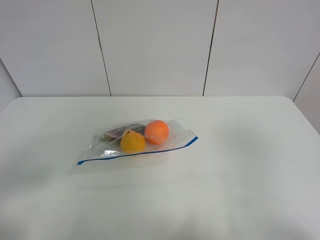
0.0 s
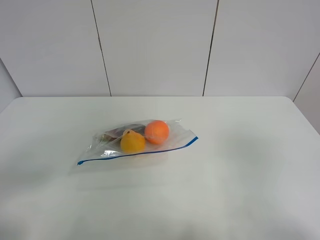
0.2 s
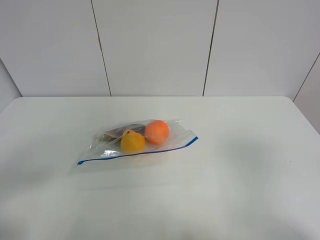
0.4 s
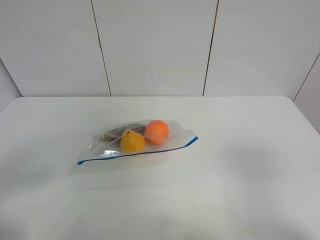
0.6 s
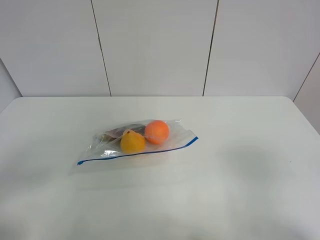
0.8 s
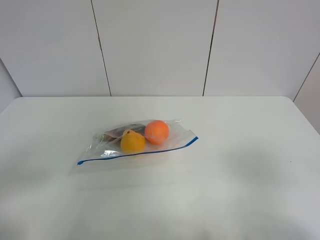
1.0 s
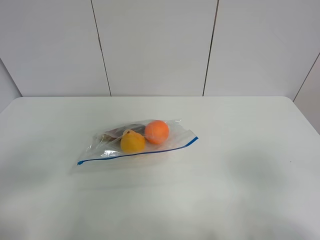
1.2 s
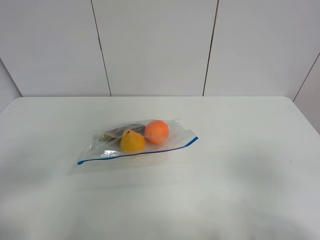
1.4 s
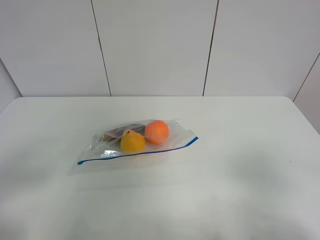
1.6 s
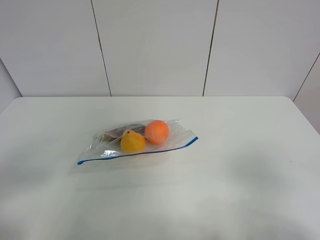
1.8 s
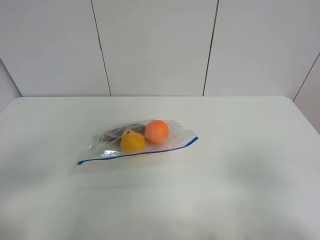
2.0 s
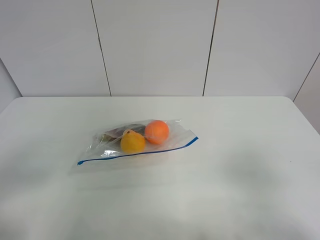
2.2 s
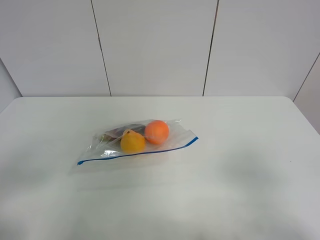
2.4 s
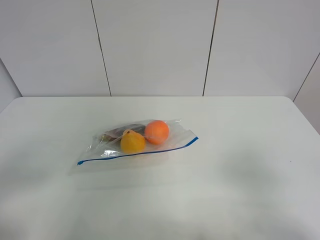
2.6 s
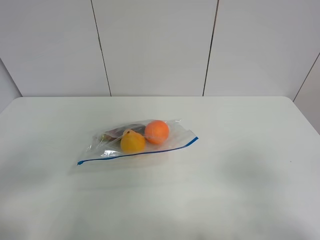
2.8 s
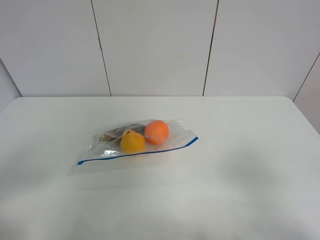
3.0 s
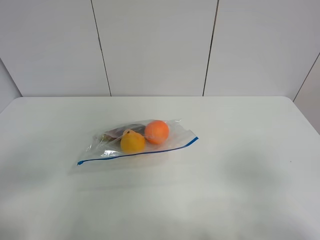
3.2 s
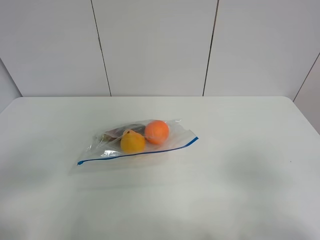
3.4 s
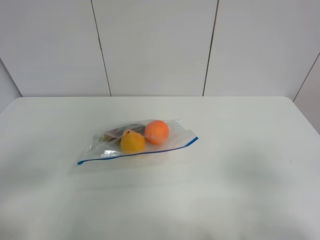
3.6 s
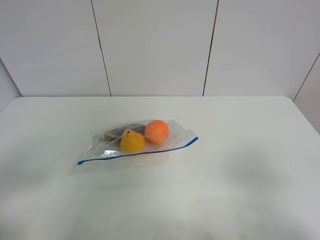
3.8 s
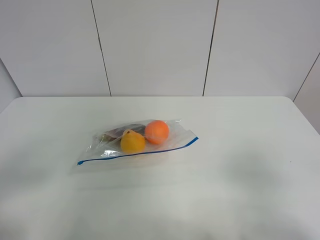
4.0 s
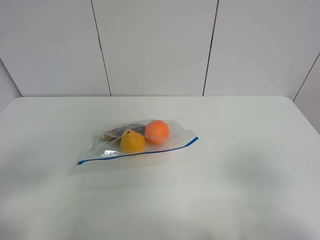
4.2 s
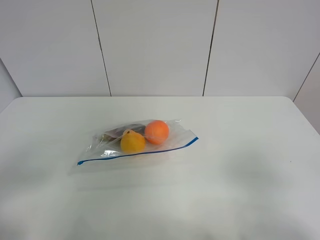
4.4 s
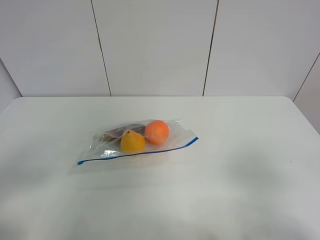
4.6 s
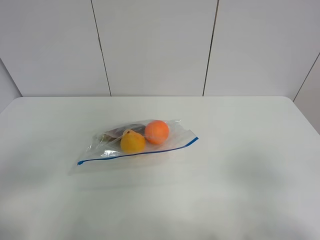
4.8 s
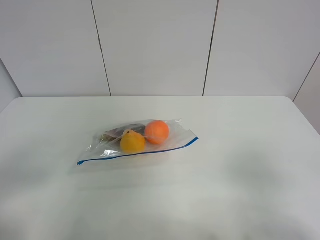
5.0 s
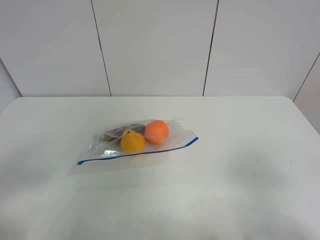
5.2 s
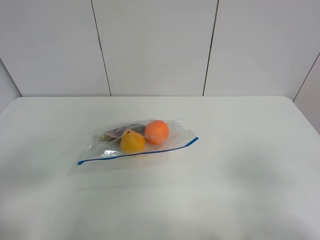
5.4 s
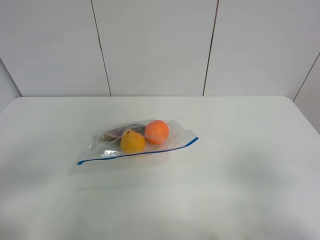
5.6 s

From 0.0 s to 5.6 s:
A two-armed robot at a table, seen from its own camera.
From 2.8 s to 4.2 s: Both grippers stay about where they are.
From 4.2 s to 5.6 s: Neither gripper changes place.

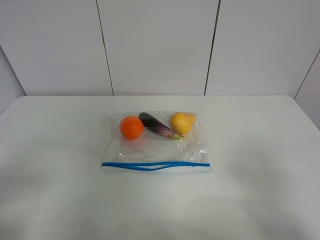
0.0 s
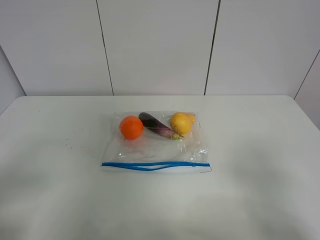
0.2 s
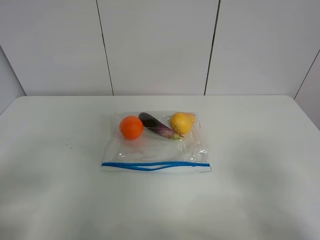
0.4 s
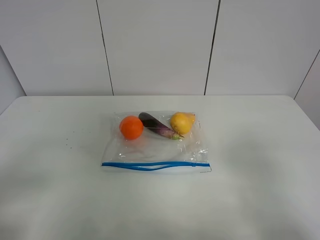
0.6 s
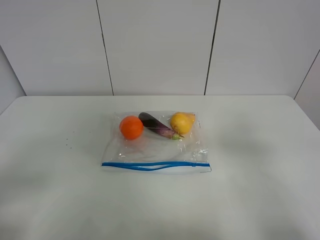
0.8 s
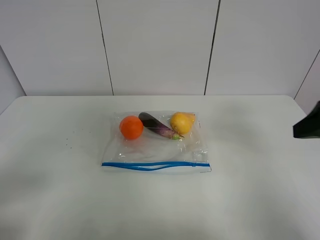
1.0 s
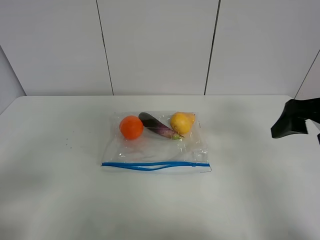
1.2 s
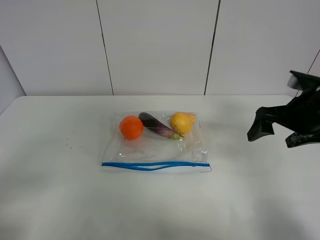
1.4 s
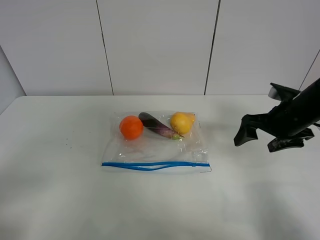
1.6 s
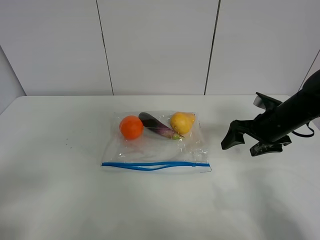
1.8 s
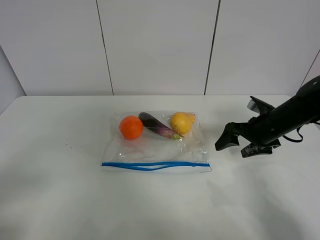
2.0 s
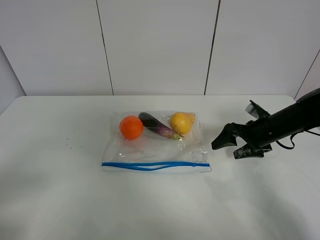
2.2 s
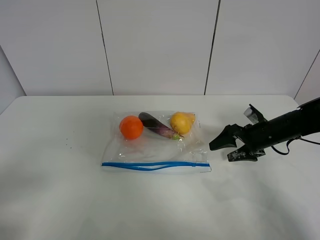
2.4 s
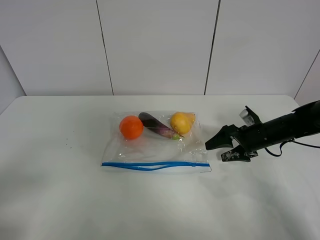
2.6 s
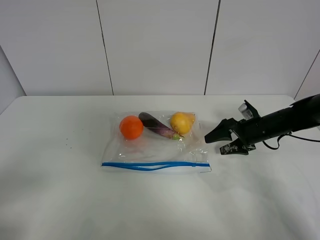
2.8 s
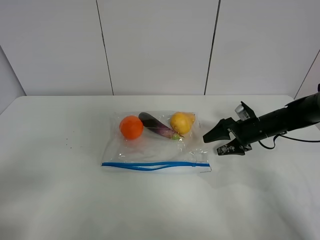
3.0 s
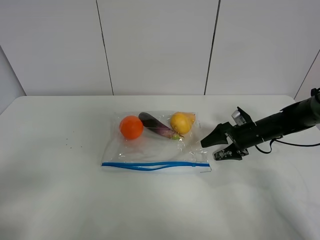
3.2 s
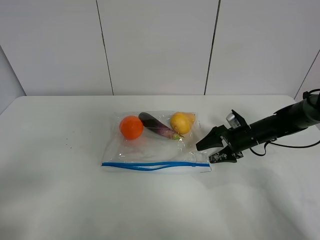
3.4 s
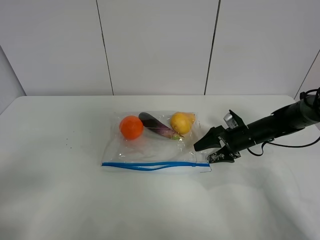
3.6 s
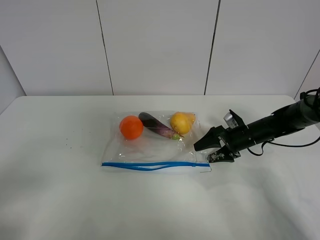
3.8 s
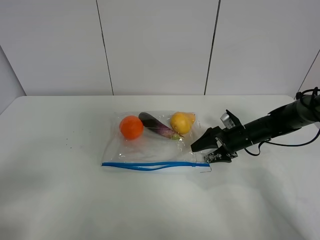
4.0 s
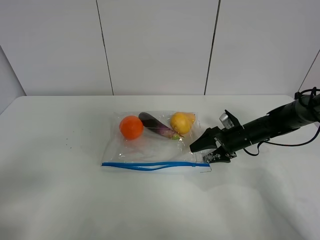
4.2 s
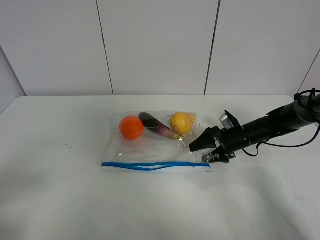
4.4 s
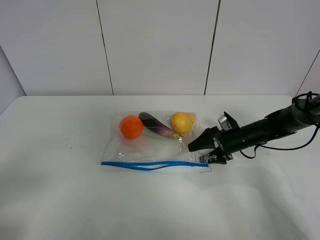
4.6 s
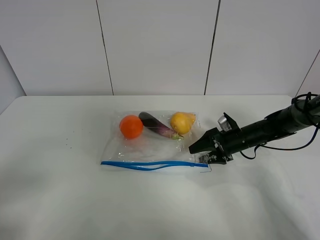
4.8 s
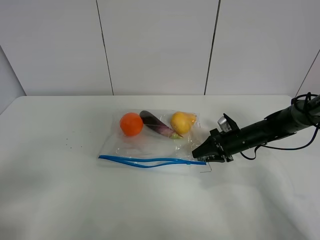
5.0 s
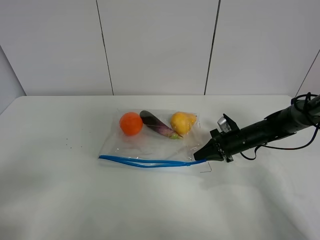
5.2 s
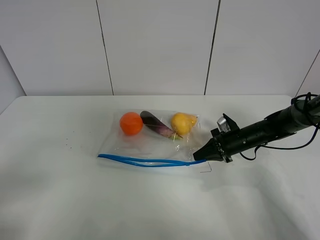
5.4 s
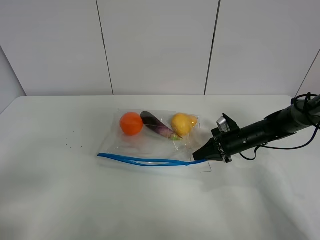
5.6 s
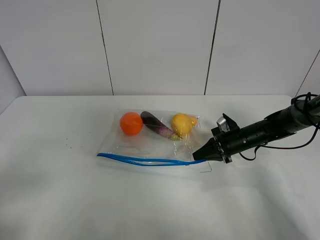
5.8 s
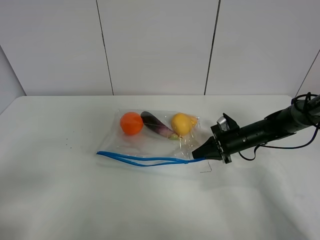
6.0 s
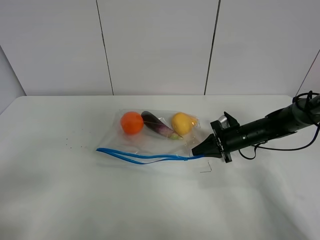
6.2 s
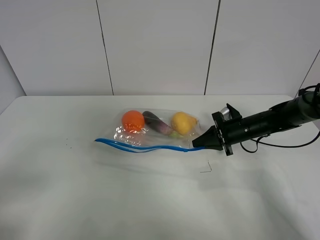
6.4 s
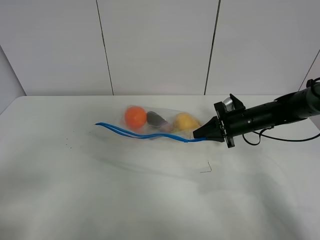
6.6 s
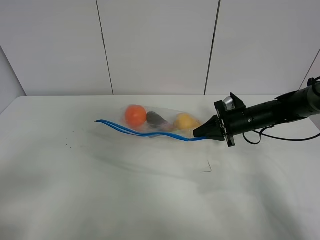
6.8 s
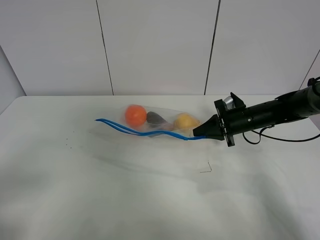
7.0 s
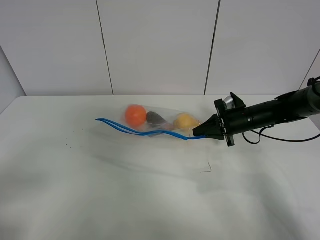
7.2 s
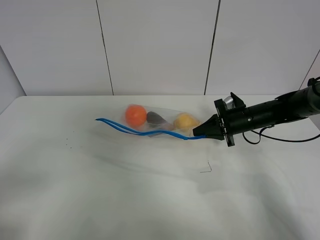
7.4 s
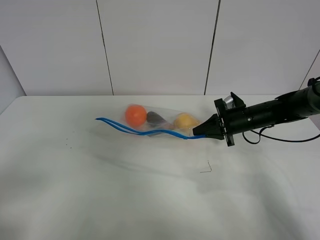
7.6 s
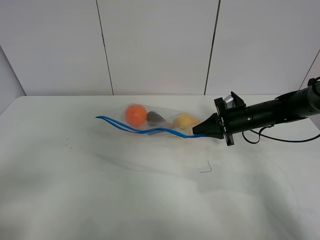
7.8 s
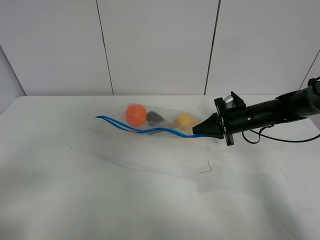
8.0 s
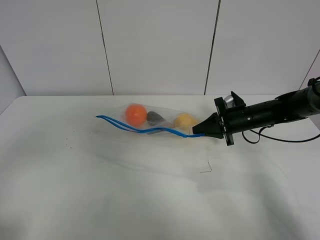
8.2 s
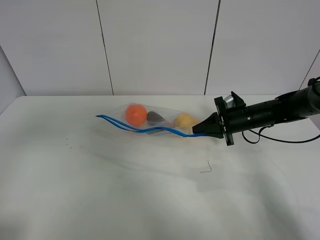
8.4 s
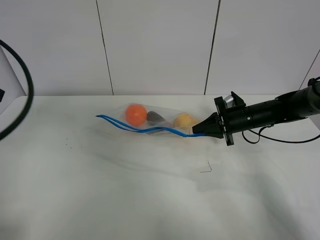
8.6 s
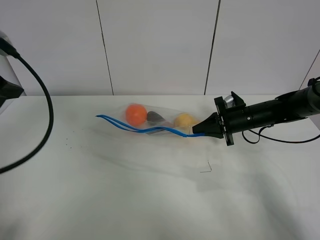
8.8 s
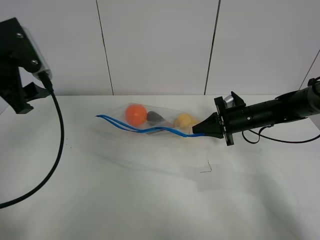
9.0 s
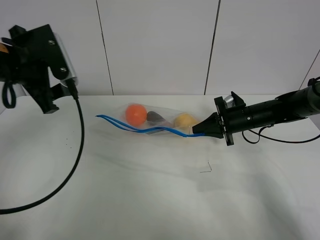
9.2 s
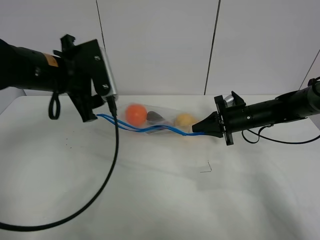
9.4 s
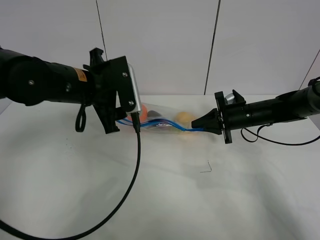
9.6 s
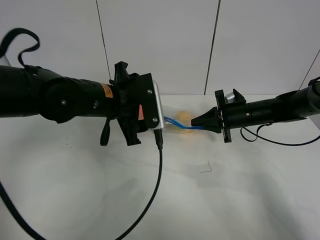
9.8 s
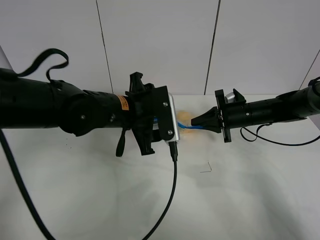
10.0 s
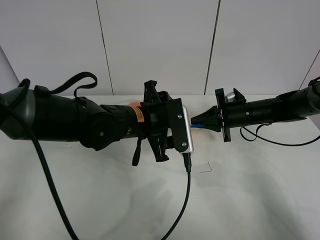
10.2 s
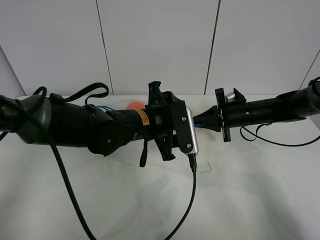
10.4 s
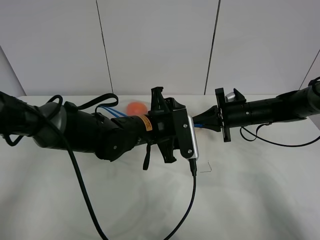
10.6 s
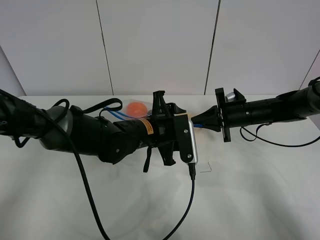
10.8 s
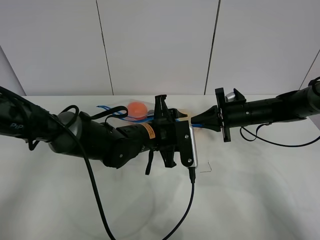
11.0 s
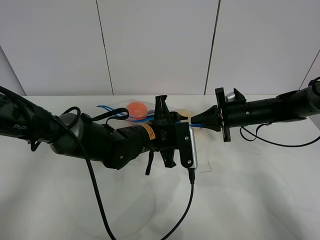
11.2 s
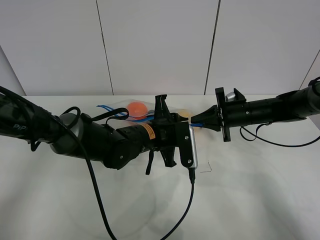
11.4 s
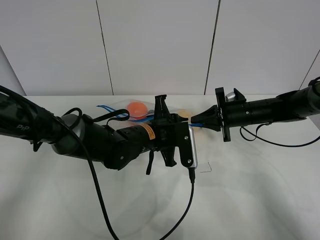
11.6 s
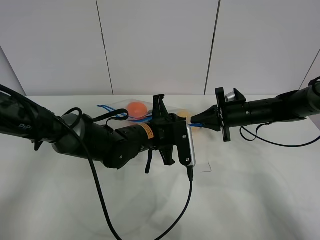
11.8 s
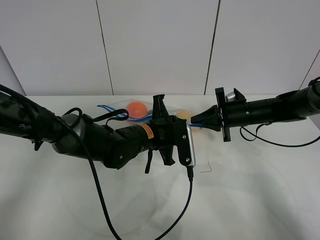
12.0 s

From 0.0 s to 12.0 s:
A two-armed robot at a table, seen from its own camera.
Step, from 0.0 s to 5.2 s: Grasp the fruit bag with right gripper.
Step, from 5.4 s to 7.2 s: Lift the fruit bag with your right gripper.
From 0.0 s to 1.6 s: The right gripper moves forward, roughly 30 cm.
From 1.6 s to 3.0 s: The right gripper moves downward and forward, about 15 cm.
From 3.0 s to 4.4 s: The grippers stay close to where they were, moving slightly.
From 4.4 s to 6.0 s: The right gripper closes.
From 6.0 s to 7.6 s: The right gripper goes some 5 cm upward.
From 7.6 s to 9.0 s: The left gripper goes roughly 25 cm forward.
From 9.0 s to 10.4 s: The left gripper is displaced to the right and downward by some 25 cm.
From 10.4 s to 12.0 s: The left gripper heads downward, covering roughly 5 cm, and closes up.

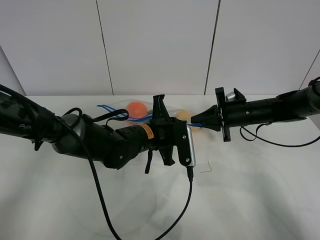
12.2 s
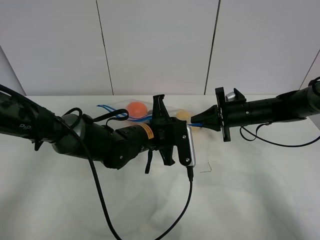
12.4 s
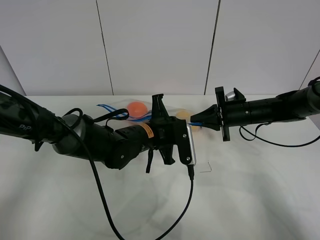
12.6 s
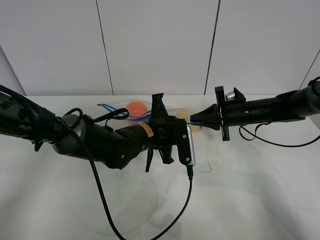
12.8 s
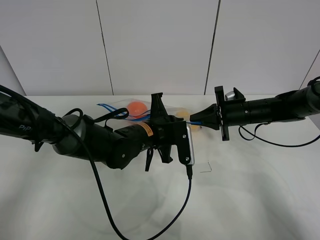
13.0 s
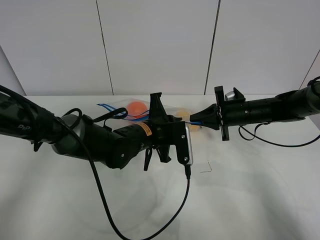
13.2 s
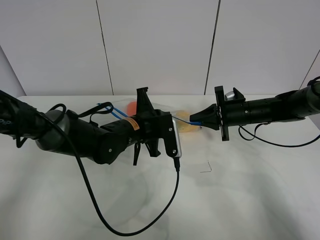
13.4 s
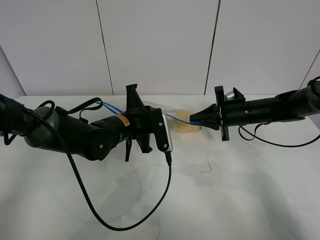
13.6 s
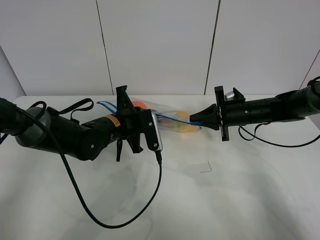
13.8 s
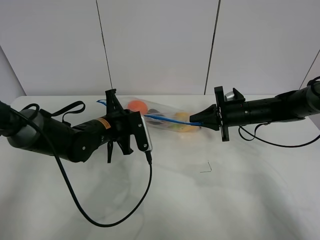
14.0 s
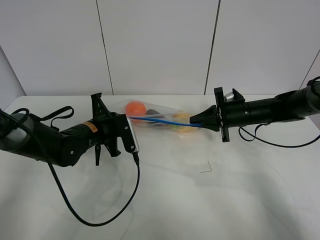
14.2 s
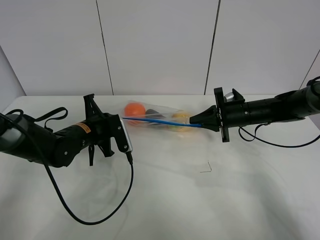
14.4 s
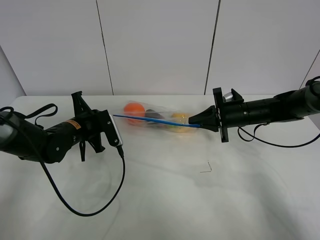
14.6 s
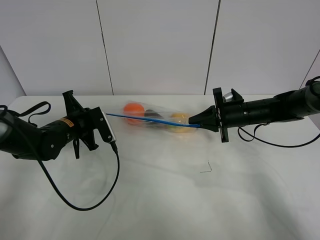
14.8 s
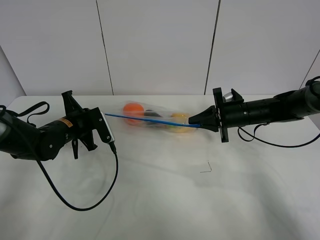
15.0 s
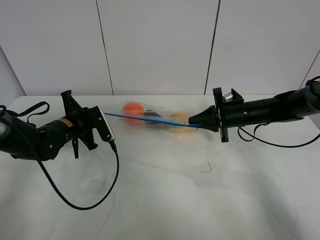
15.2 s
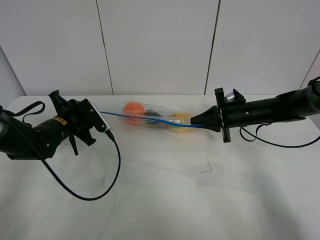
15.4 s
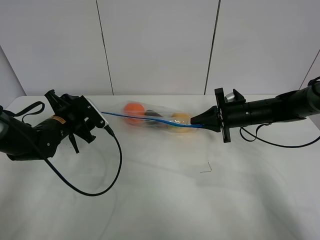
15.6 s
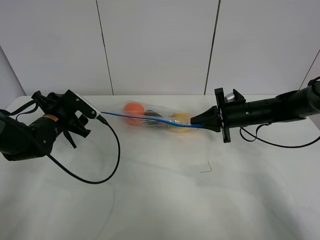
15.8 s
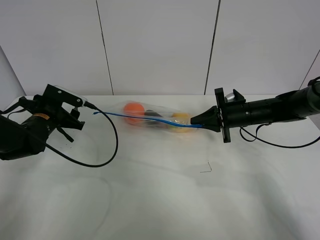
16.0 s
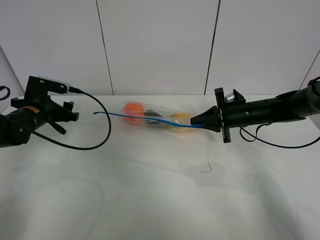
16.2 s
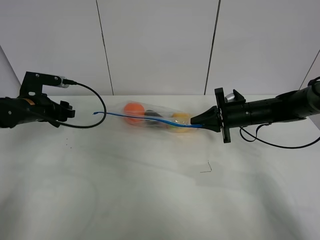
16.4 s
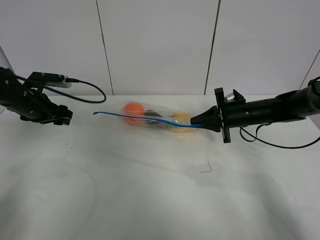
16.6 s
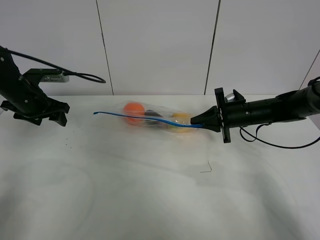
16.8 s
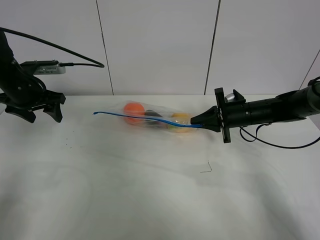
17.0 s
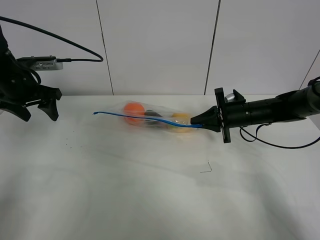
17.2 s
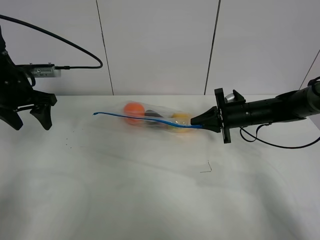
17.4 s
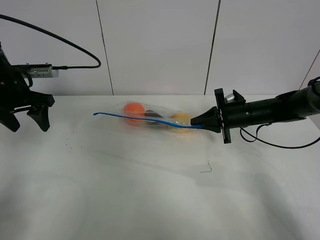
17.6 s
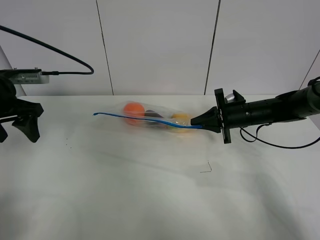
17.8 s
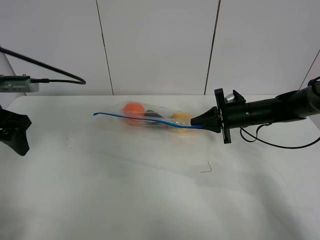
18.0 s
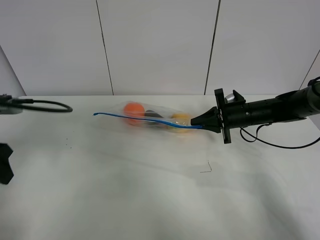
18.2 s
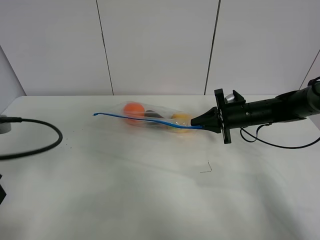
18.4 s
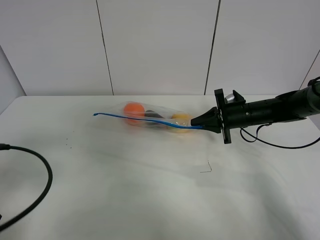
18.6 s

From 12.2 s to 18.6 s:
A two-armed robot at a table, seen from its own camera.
Step, from 12.2 s to 15.6 s: Pull the fruit bag with left gripper.
From 12.2 s to 13.8 s: The left gripper moves to the left, roughly 10 cm.
From 13.8 s to 15.4 s: The left gripper shifts about 15 cm to the left, and opens its fingers.
From 15.4 s to 17.0 s: The left gripper goes roughly 15 cm upward and to the left, and opens up.
From 17.0 s to 18.6 s: The left gripper goes about 25 cm backward.
